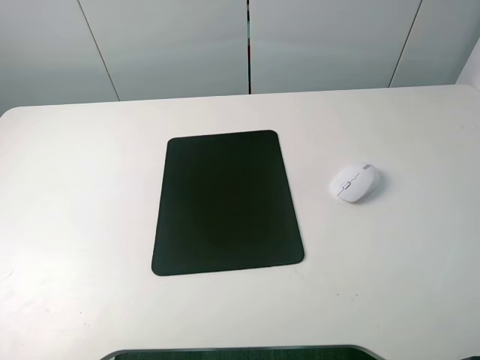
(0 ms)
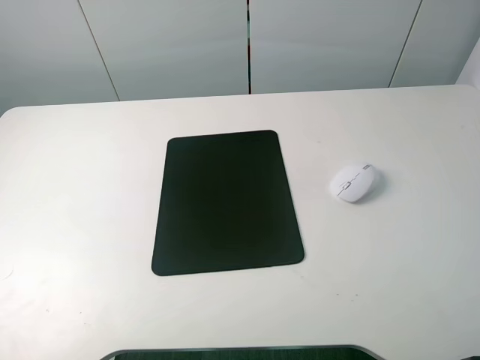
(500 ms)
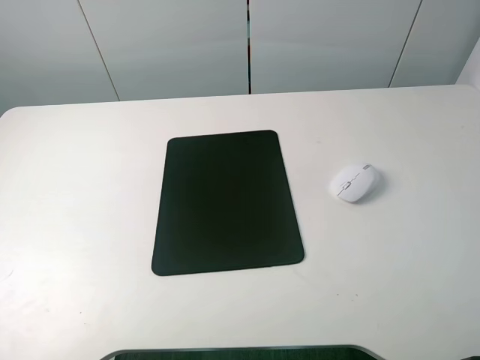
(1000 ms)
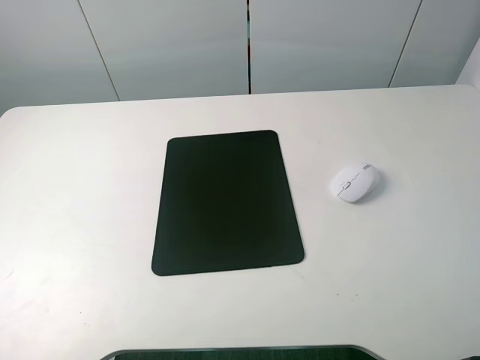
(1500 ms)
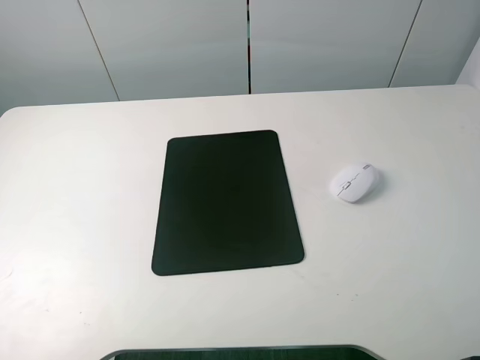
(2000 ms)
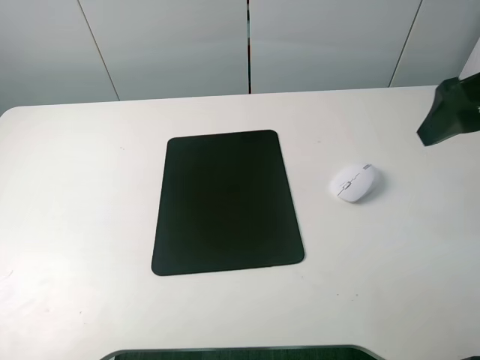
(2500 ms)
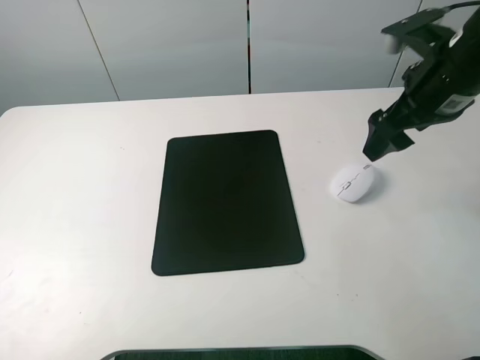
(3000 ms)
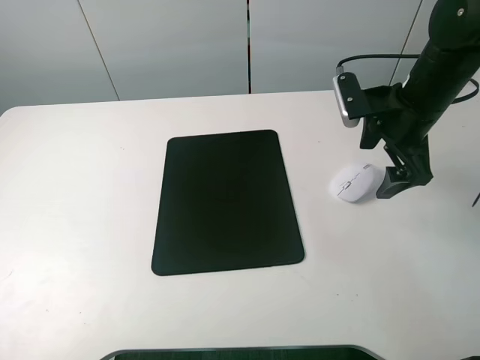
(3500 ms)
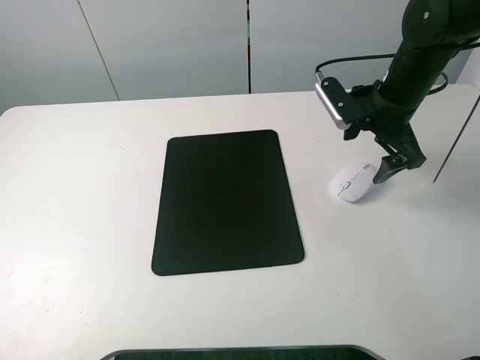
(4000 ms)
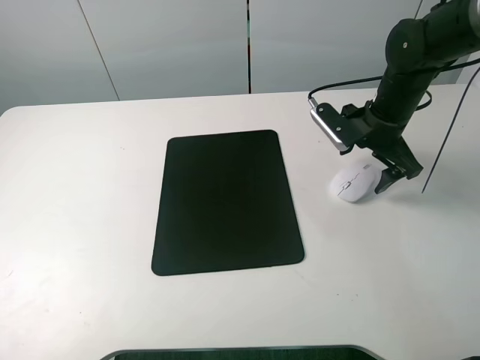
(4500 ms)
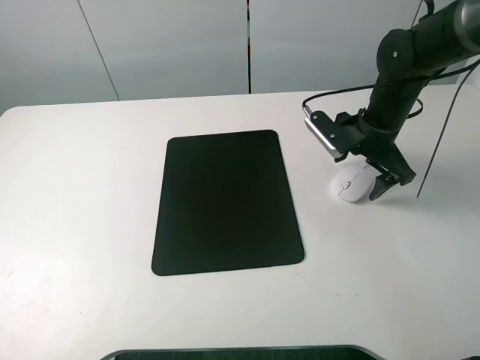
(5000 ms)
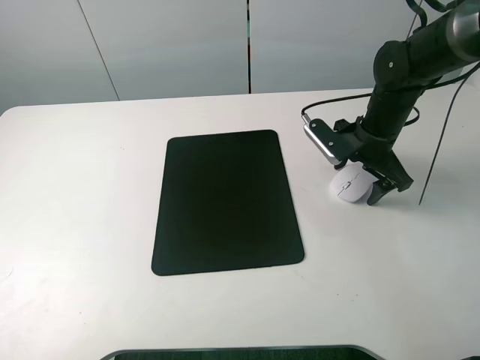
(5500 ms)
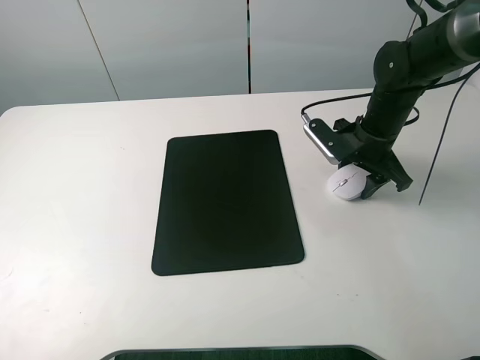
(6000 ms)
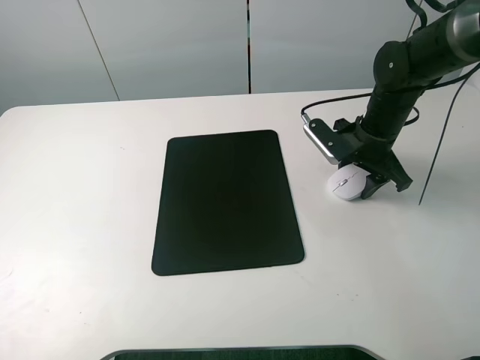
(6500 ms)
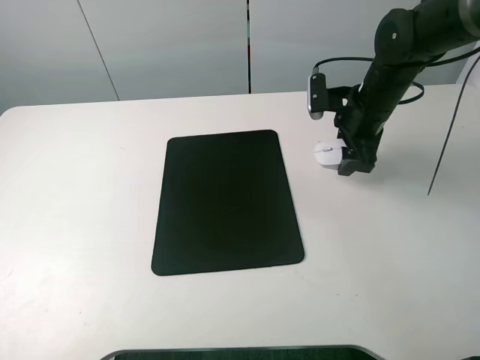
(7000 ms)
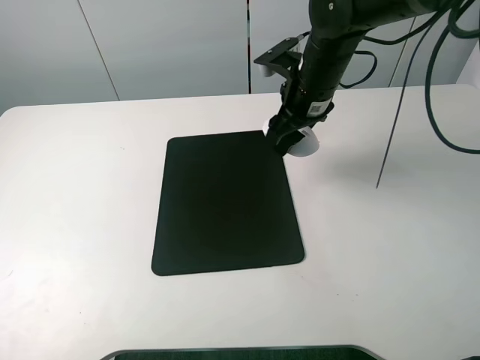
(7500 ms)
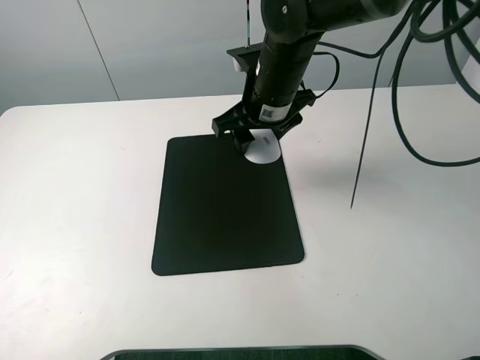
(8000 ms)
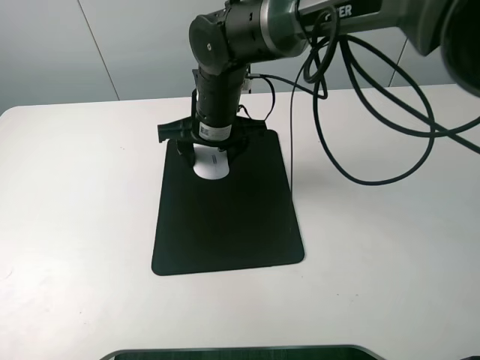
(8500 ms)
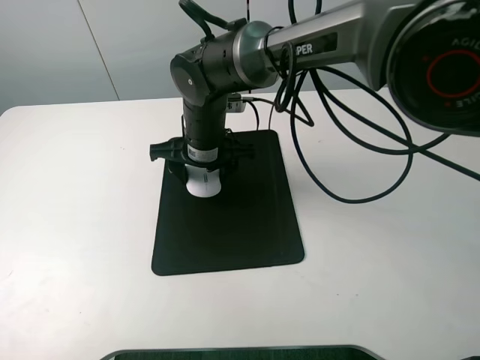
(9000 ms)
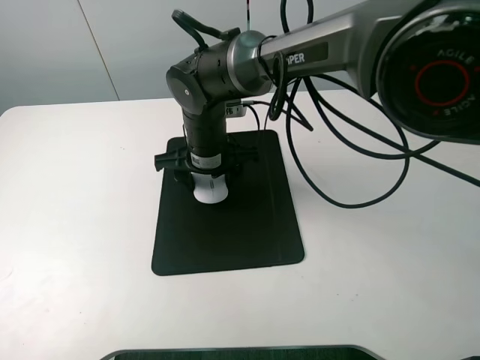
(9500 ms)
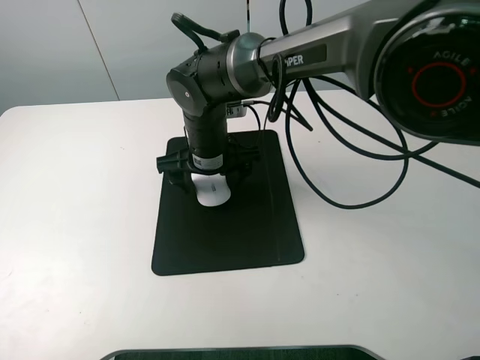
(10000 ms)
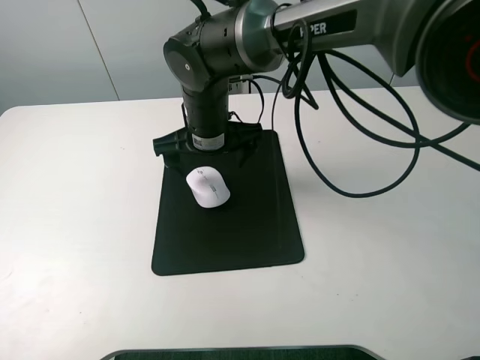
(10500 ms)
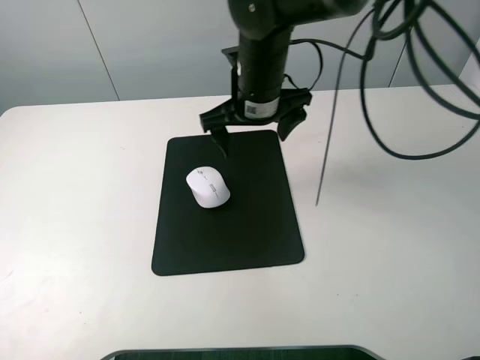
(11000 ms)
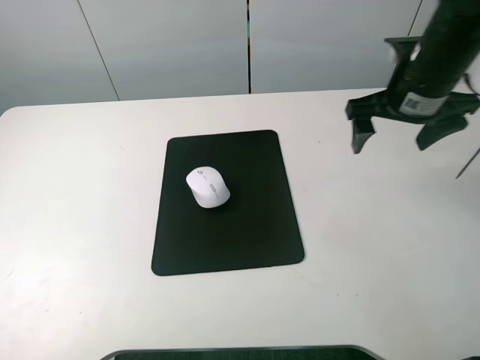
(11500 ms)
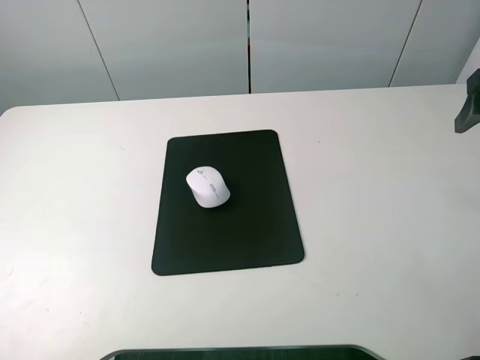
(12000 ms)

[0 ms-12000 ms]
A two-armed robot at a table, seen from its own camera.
Step, 0 ms to 6000 ms: Grasp the mouse with the right gripper.
Step, 6500 ms to 10000 ms: Place the mouse on the mouse mat with the right gripper.
2000 ms to 4000 ms: The right gripper heads forward and downward, covering roughly 30 cm.
4000 ms to 6000 ms: The right gripper is displaced downward by approximately 5 cm, and closes.
6000 ms to 8000 ms: The right gripper travels to the left and upward by some 20 cm.
8000 ms to 10000 ms: The right gripper moves to the left and downward, roughly 10 cm, and opens.
10000 ms to 12000 ms: The right gripper moves to the right and upward, about 40 cm.

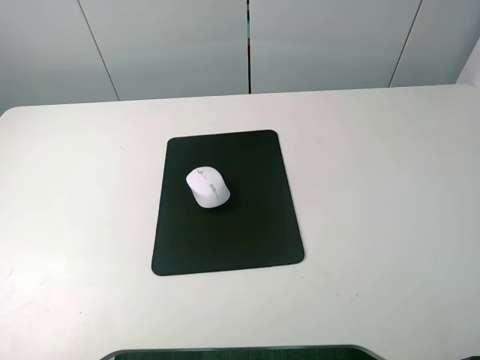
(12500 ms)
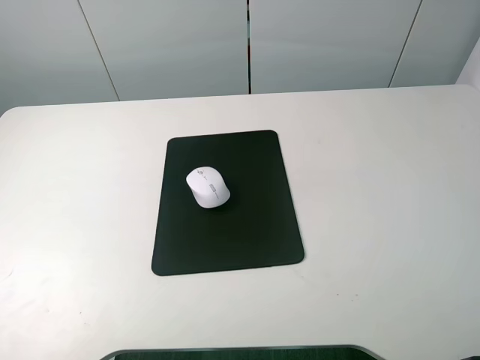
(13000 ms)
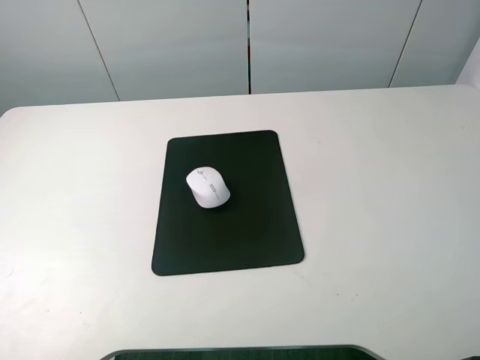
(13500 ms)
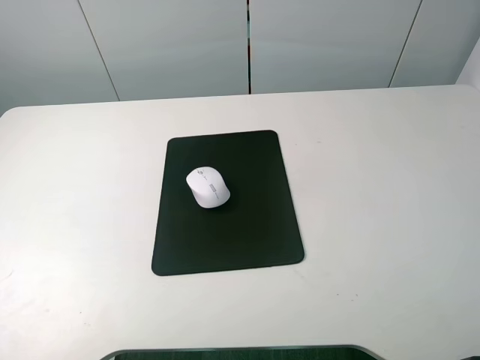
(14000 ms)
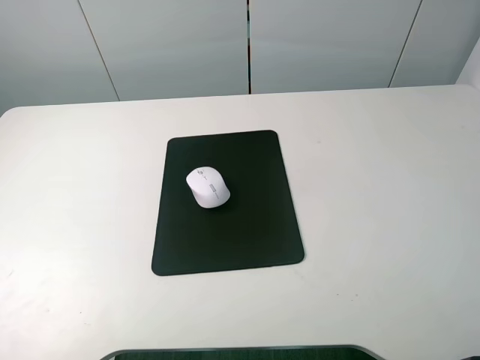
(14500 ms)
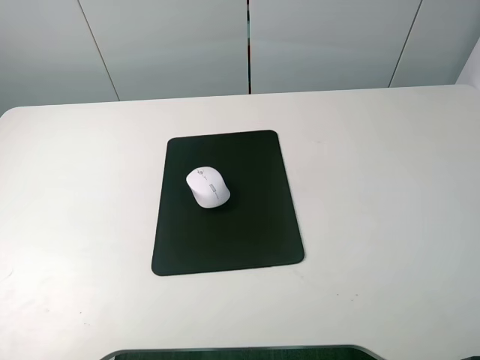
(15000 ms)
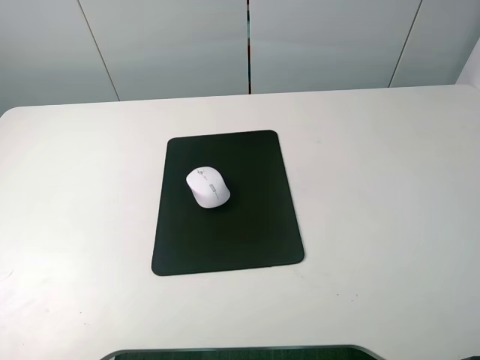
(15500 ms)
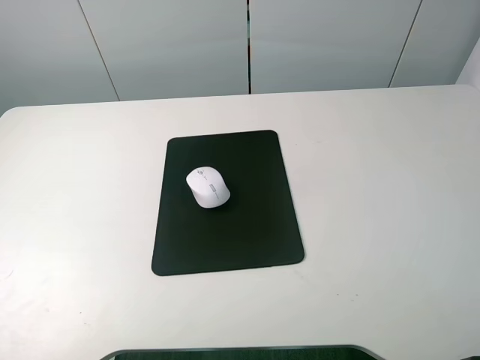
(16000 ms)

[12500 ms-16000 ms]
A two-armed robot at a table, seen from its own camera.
14500 ms to 16000 ms: Both grippers stay about where they are.
